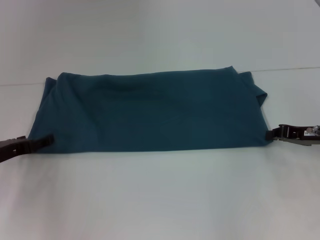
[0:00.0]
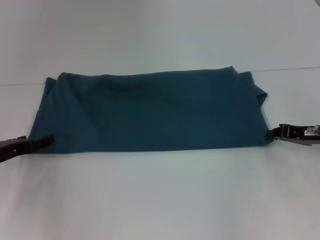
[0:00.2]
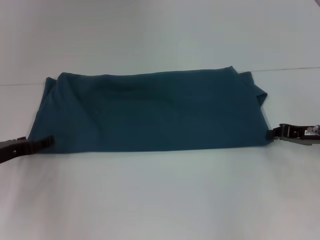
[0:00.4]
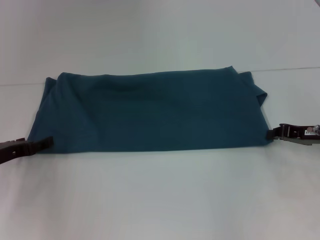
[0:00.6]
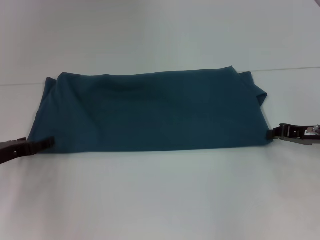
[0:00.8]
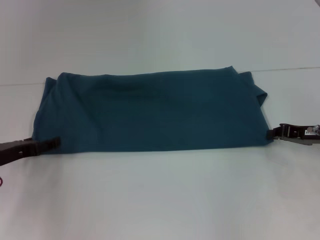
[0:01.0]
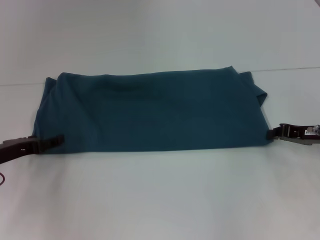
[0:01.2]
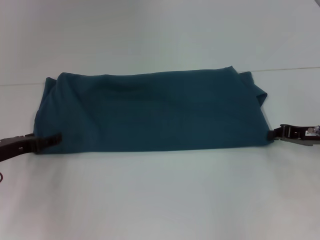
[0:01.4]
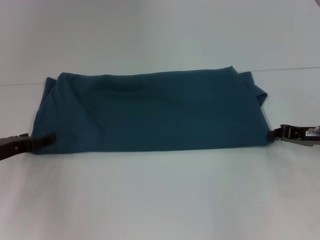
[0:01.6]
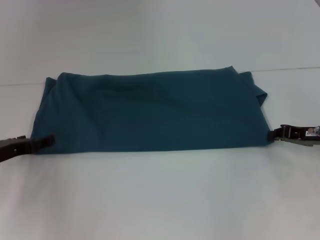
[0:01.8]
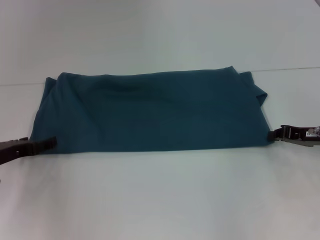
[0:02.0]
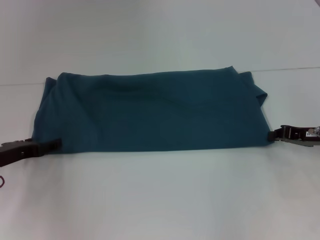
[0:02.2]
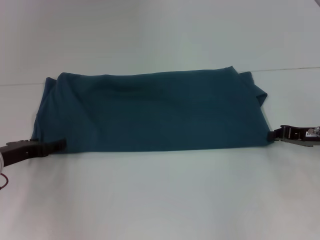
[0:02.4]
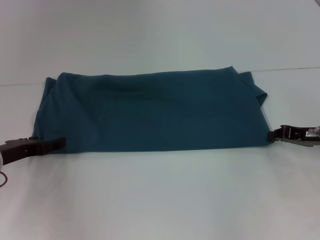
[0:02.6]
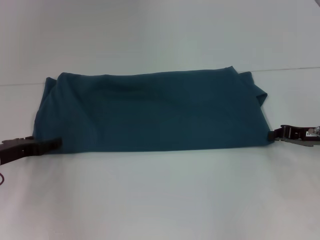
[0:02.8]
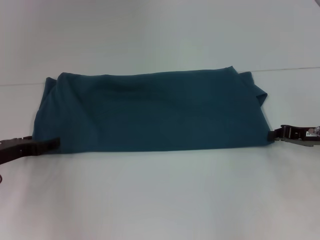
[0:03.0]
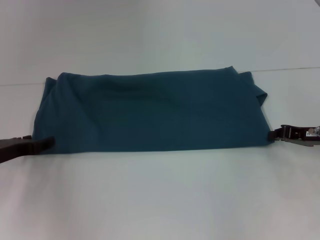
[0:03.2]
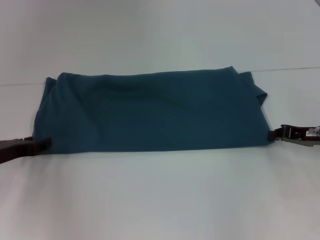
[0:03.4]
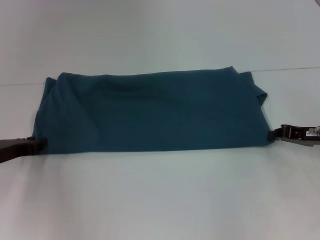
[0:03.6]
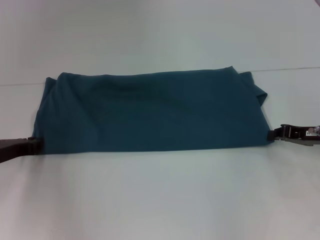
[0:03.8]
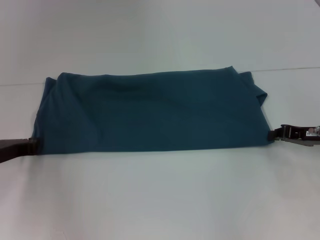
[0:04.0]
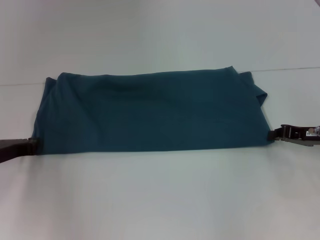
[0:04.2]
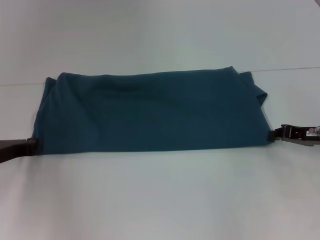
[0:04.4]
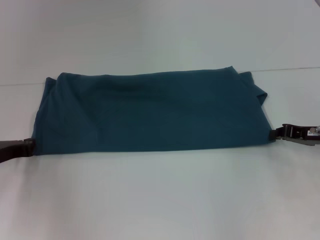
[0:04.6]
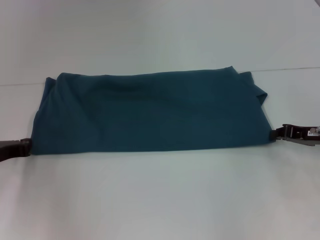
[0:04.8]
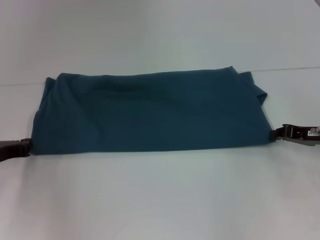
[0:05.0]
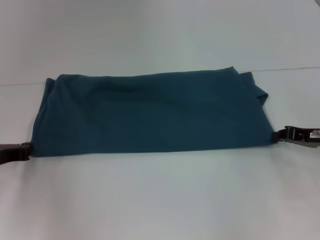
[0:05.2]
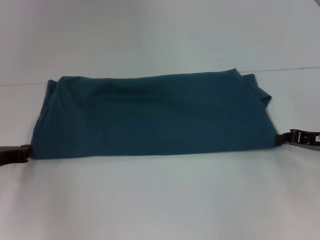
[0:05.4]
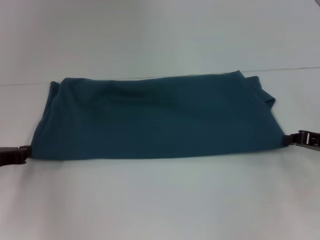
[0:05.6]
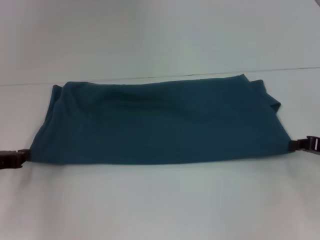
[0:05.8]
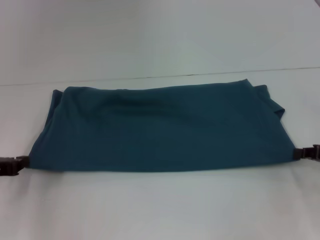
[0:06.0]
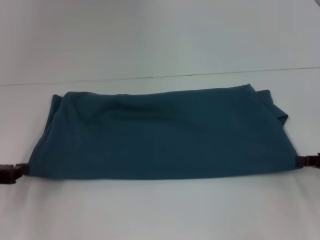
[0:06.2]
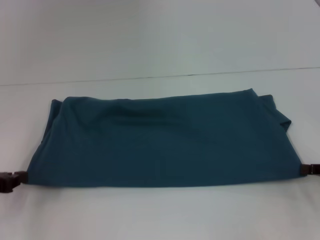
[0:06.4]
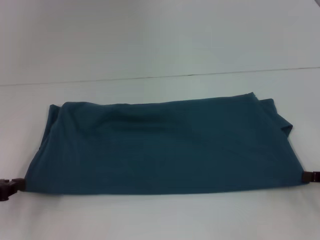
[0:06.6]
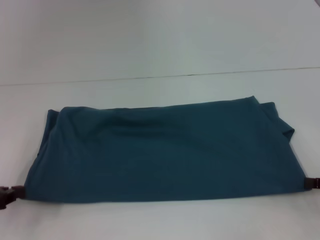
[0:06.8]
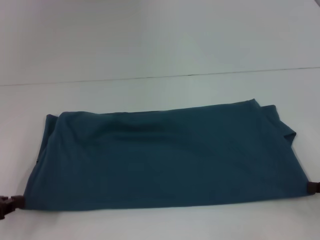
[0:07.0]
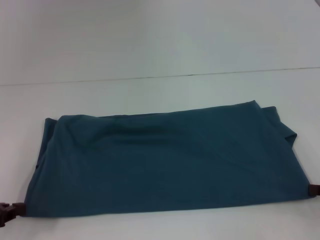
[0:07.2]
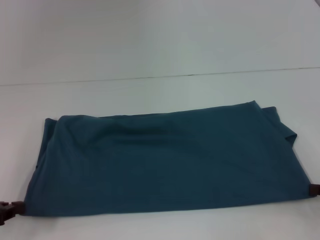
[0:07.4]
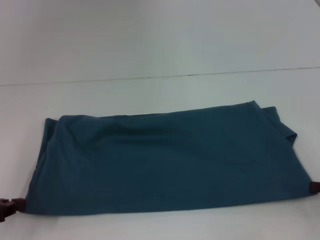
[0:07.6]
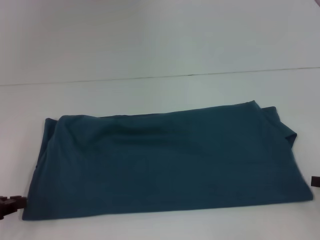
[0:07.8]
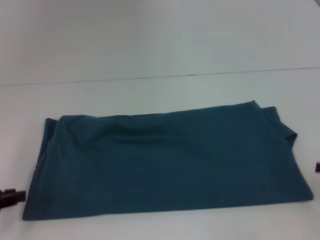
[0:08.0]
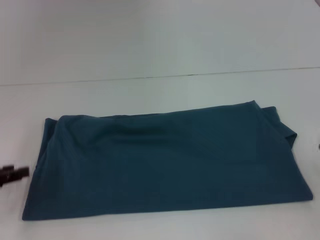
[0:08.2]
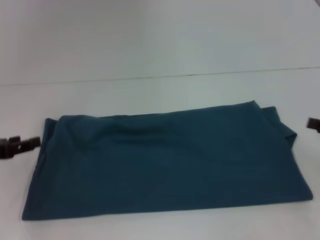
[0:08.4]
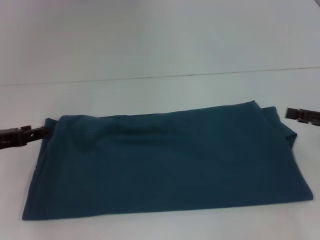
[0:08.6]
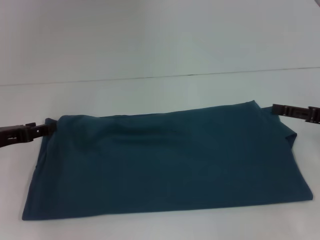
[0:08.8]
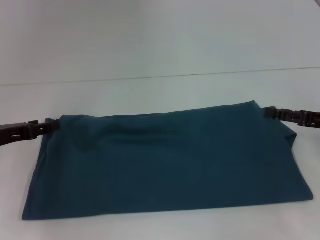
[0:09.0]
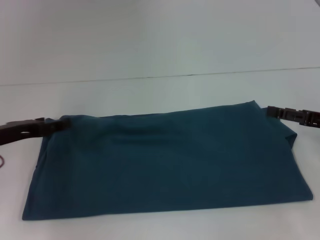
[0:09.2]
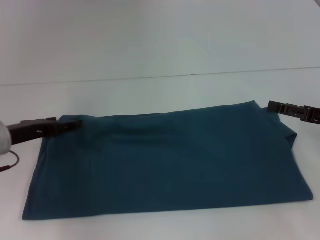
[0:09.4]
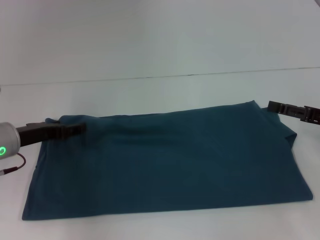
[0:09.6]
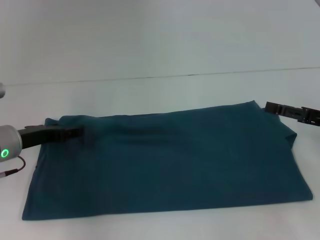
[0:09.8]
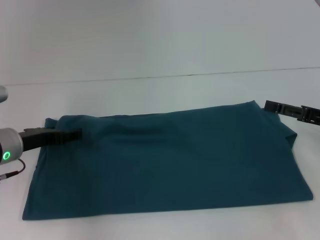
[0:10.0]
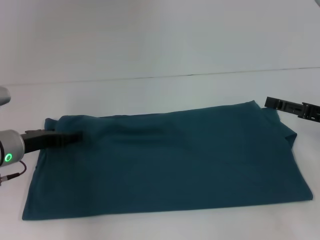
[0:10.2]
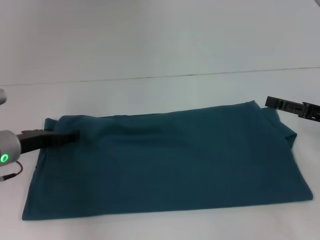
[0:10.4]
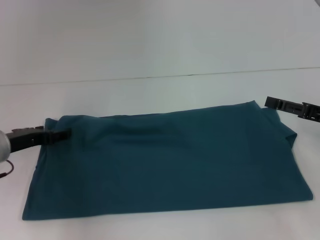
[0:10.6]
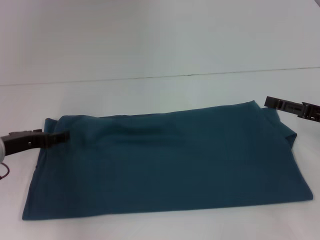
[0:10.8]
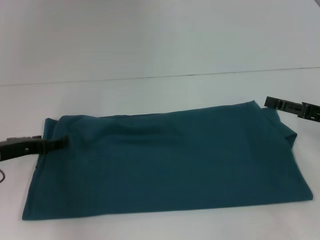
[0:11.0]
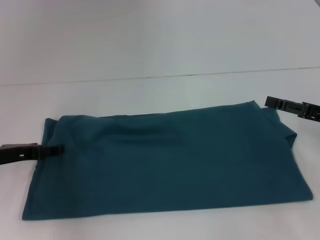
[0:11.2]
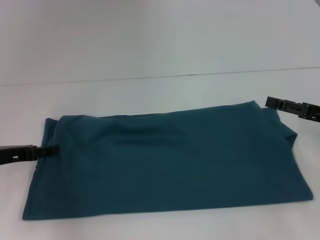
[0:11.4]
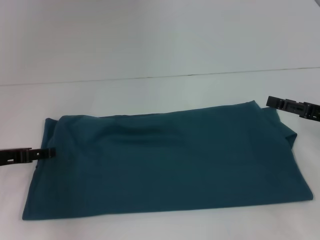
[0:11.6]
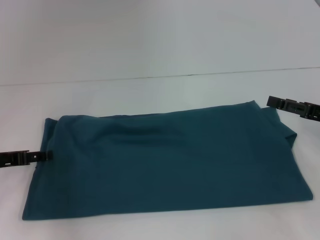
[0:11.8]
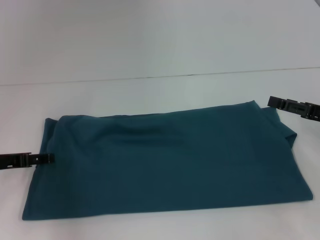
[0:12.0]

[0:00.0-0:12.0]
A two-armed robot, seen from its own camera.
Step, 0:00.0 to 0:07.8: Pull the clothes with your left hand.
Step, 0:00.0 to 0:07.8: Pull the clothes with your right hand.
0:01.6 to 0:03.0: Neither gripper changes place.
0:04.4 to 0:06.0: The right gripper shifts some 5 cm backward; the left gripper ends up approximately 5 cm from where it was.
0:06.0 to 0:07.6: The two grippers go roughly 5 cm backward.
0:07.6 to 0:09.0: The two grippers go approximately 10 cm forward. The right gripper opens its fingers; the left gripper opens.
0:09.0 to 0:10.4: The left gripper shifts by about 5 cm.
0:10.4 to 0:12.0: The left gripper ends up some 5 cm from where it was.

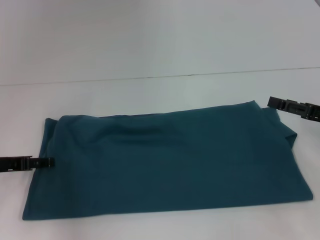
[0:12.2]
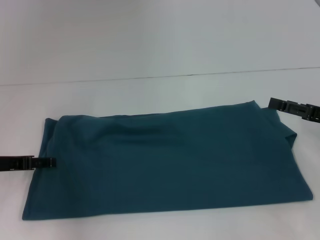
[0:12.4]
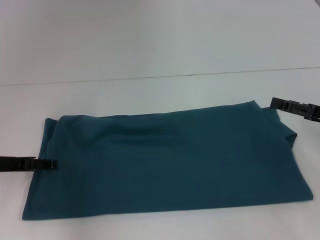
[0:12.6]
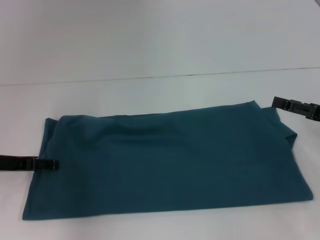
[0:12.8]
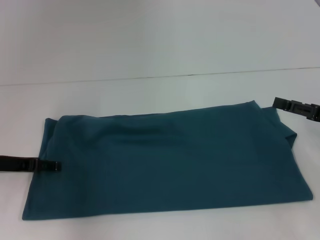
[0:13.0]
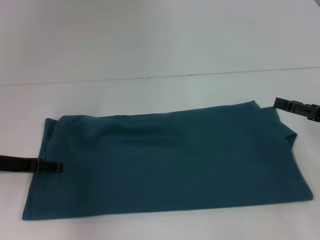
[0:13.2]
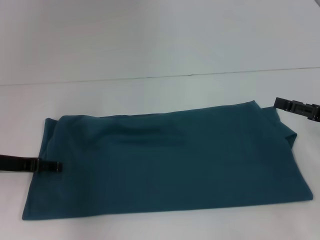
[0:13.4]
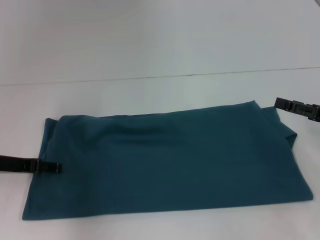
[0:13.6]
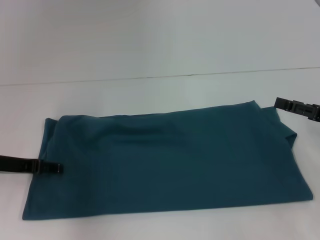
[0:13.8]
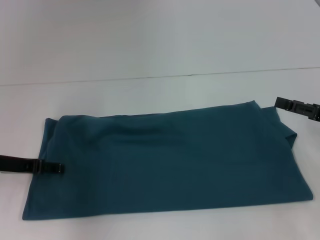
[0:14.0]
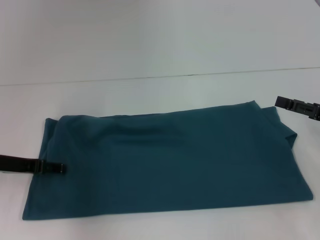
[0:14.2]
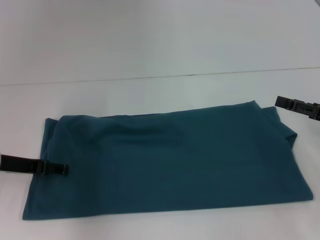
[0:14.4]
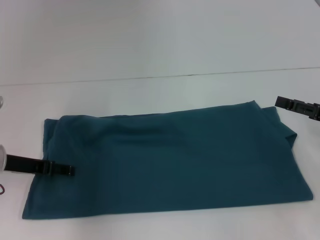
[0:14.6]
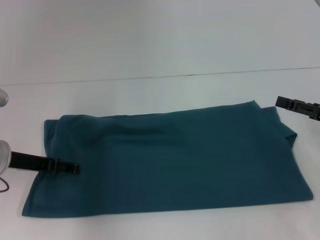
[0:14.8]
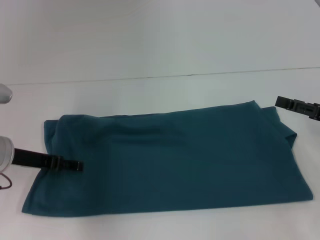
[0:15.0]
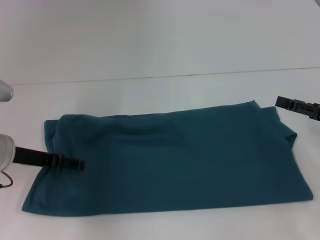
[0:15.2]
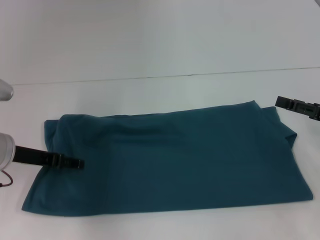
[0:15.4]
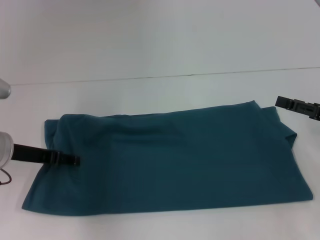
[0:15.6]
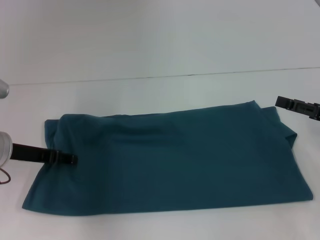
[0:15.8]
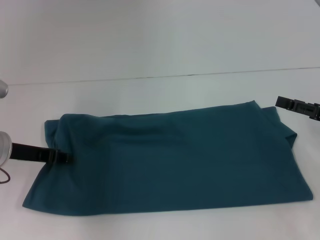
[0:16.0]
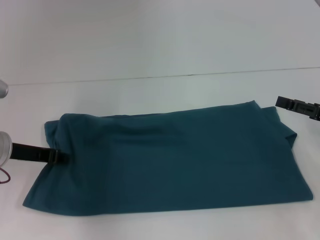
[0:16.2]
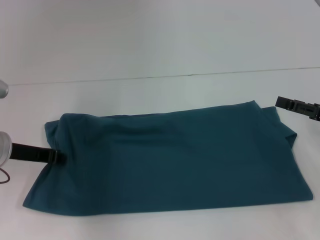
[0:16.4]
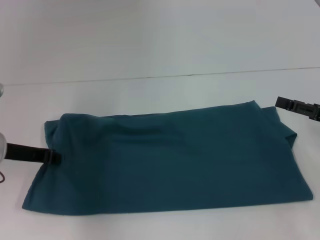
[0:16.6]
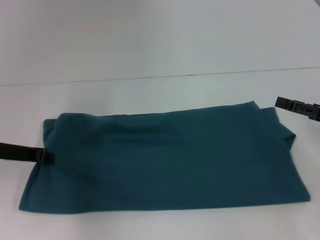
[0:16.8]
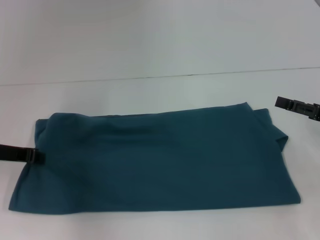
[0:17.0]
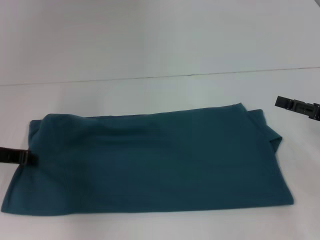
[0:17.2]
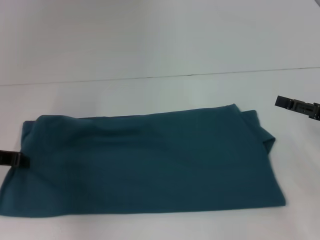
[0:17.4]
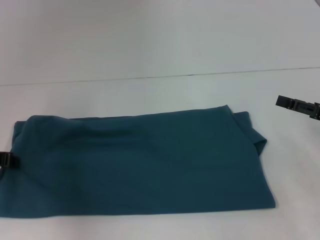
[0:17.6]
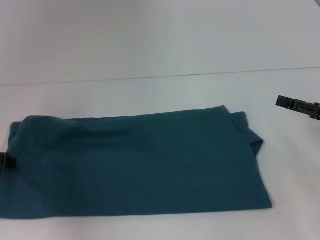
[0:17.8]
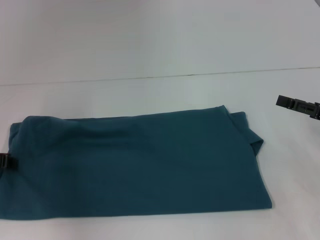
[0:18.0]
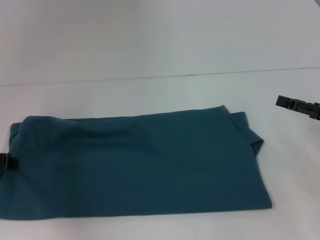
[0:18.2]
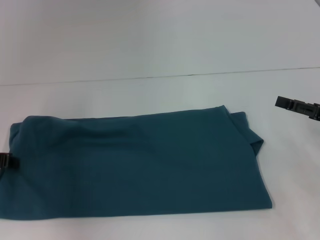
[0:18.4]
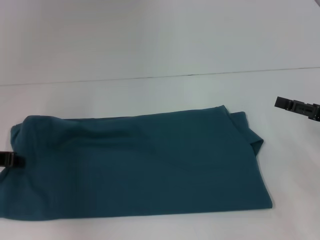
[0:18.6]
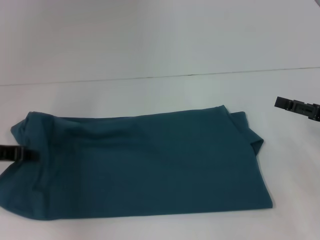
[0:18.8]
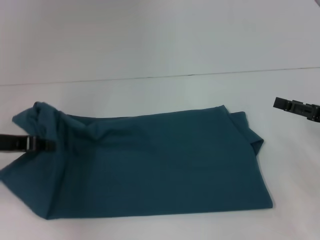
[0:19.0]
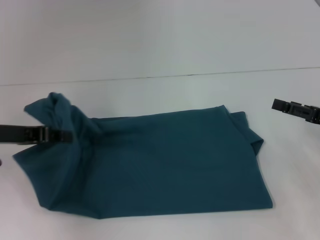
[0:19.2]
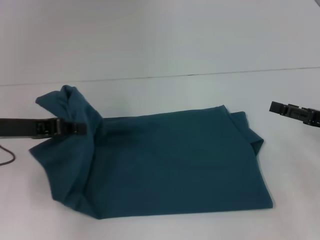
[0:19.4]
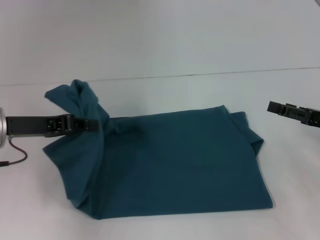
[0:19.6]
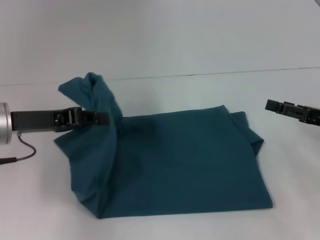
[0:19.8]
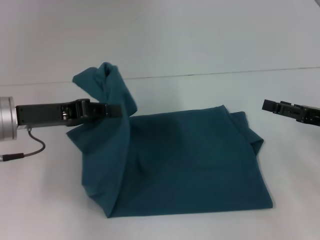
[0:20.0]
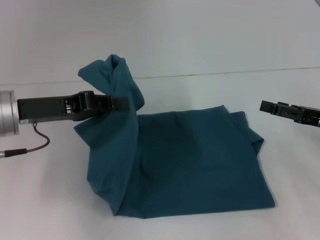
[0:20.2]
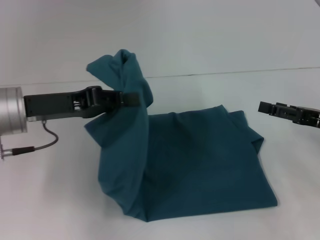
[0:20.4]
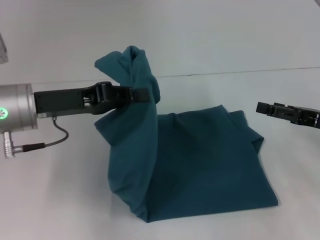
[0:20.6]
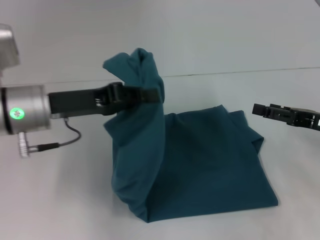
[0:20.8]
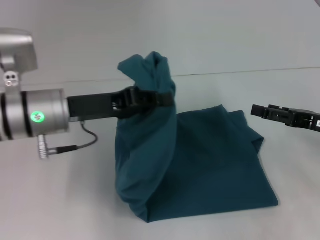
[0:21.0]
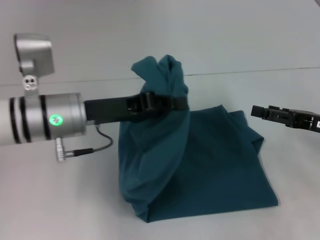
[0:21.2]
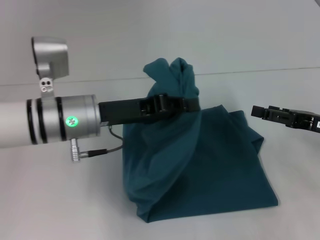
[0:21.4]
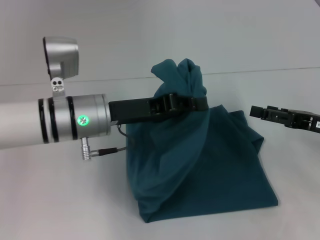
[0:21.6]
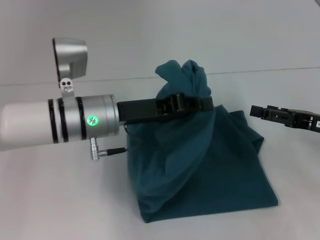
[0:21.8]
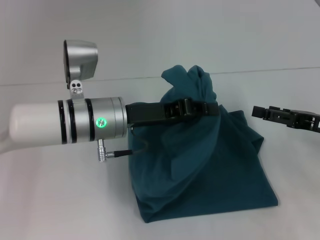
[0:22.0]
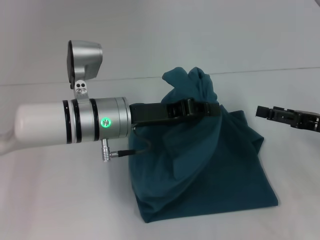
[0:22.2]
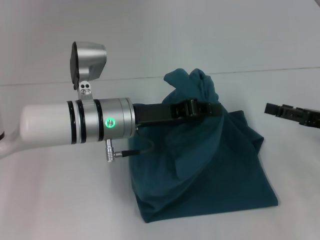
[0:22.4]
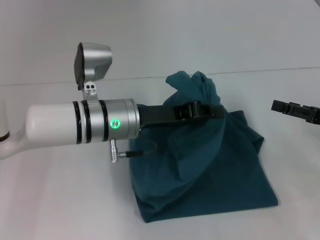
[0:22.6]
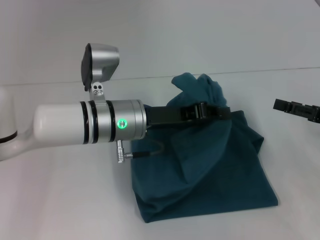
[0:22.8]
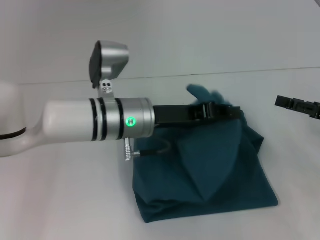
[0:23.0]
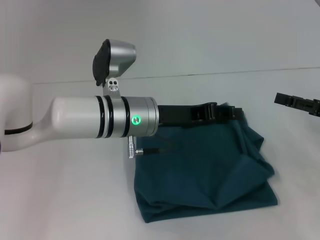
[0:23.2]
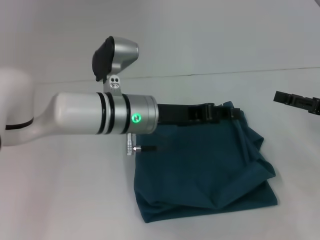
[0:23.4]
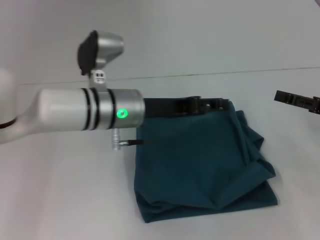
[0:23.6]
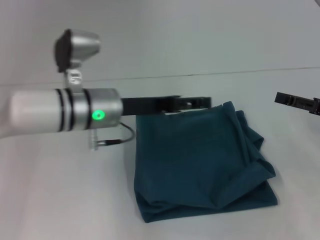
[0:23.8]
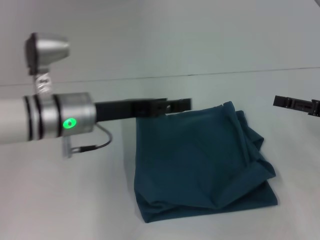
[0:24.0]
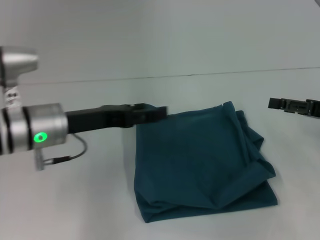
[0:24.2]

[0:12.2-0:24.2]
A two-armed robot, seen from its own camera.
Step, 0:12.2 to 0:23.6: Fold the clothes to the left.
0:13.8 to 0:15.2: The grippers make only small movements.
0:15.2 to 0:16.6: The left gripper closes its fingers.
0:16.6 to 0:18.2: The left gripper shifts some 5 cm to the left.
0:18.2 to 0:19.8: The left gripper heads to the right, covering some 10 cm.
0:19.8 to 0:21.2: The left gripper moves to the right, approximately 10 cm.
0:21.2 to 0:22.6: The left gripper travels to the right by approximately 5 cm.
0:22.6 to 0:24.2: The left gripper heads to the left, covering some 10 cm, and opens its fingers.
